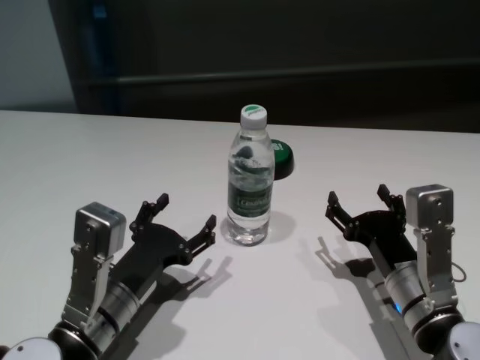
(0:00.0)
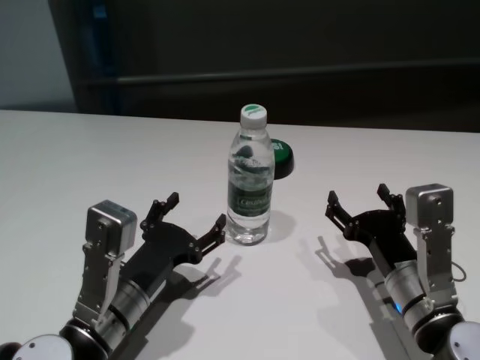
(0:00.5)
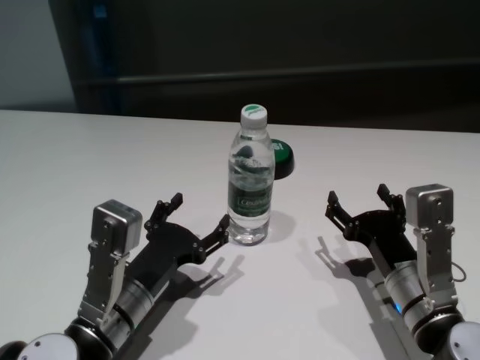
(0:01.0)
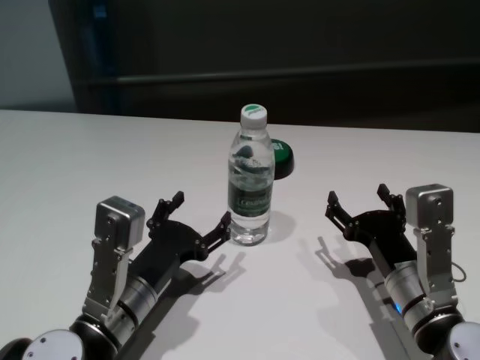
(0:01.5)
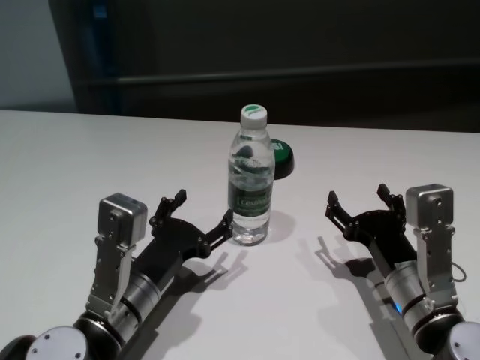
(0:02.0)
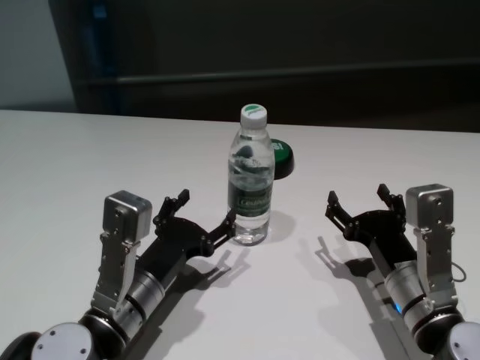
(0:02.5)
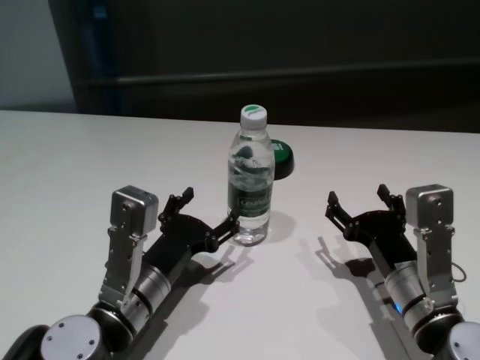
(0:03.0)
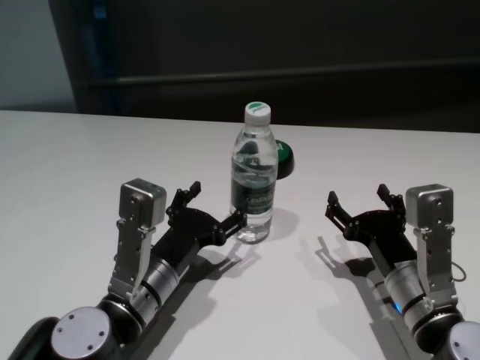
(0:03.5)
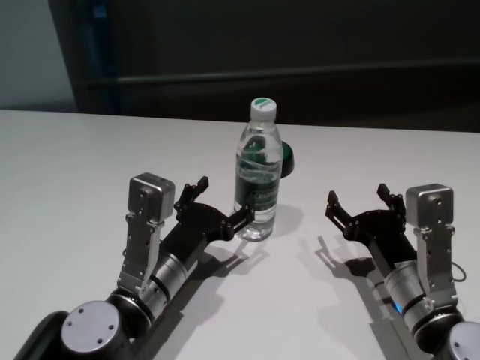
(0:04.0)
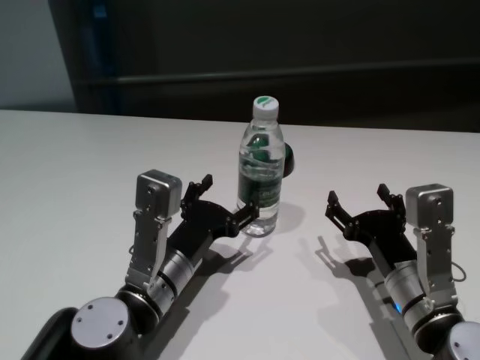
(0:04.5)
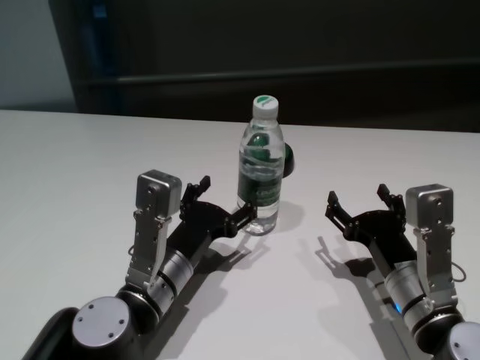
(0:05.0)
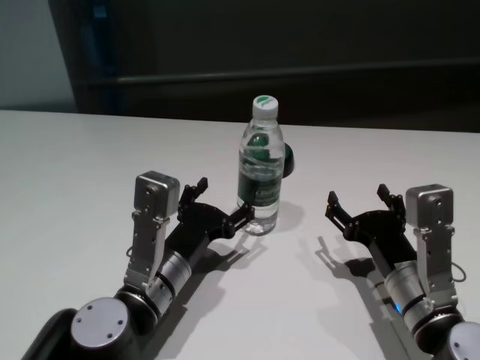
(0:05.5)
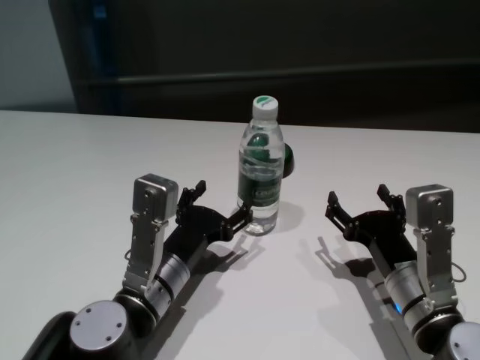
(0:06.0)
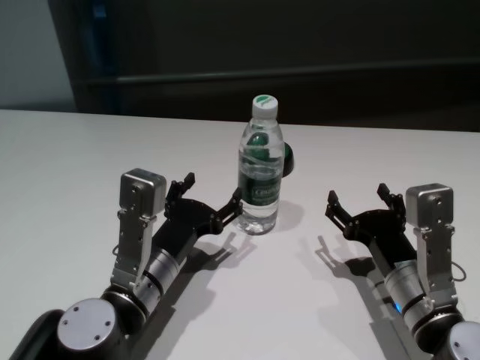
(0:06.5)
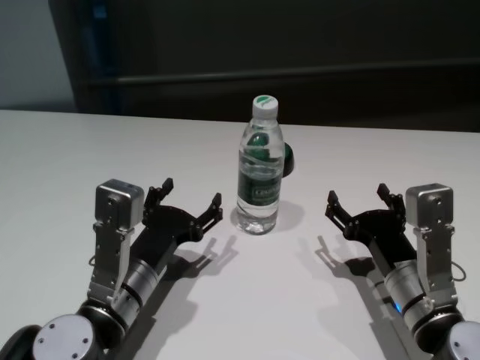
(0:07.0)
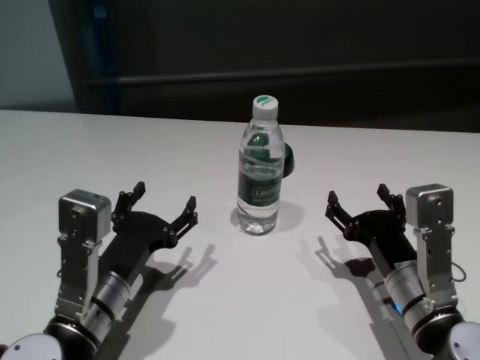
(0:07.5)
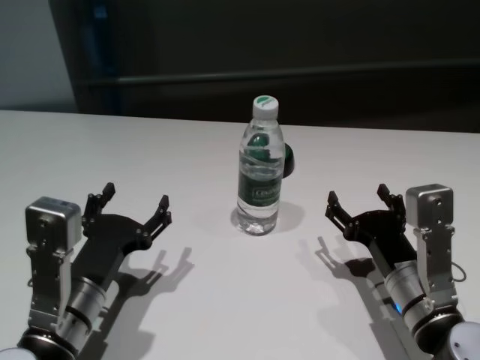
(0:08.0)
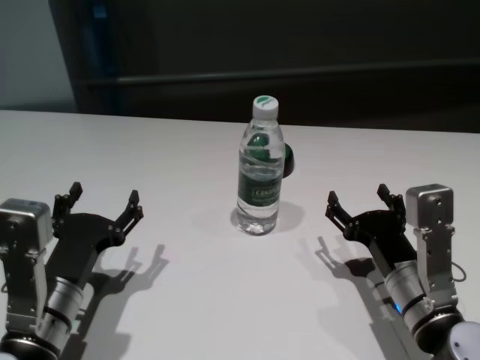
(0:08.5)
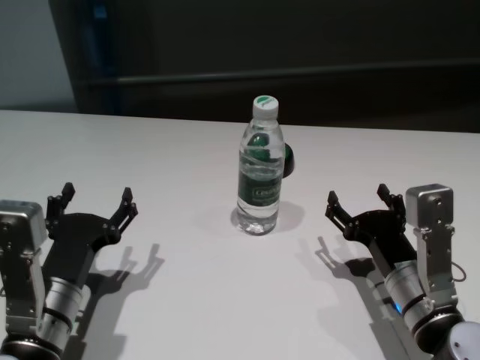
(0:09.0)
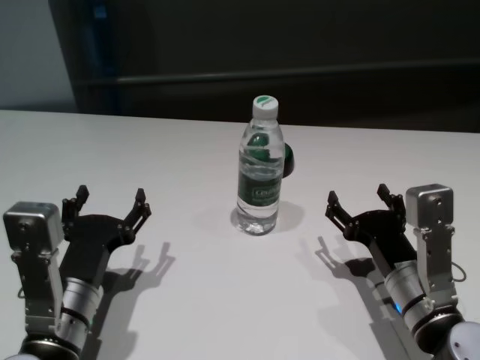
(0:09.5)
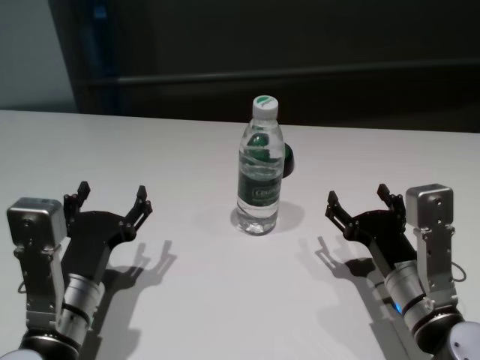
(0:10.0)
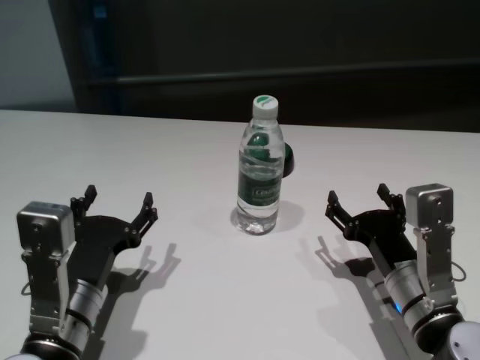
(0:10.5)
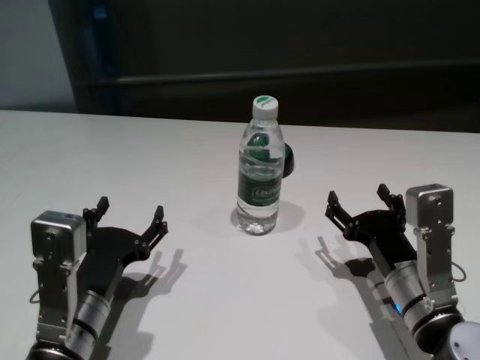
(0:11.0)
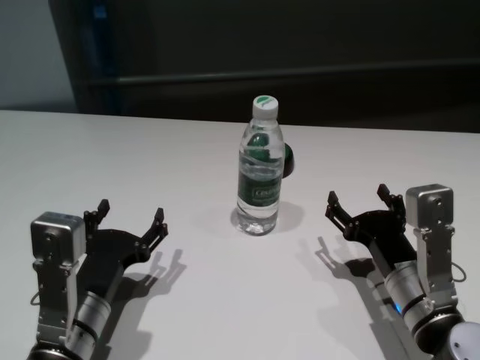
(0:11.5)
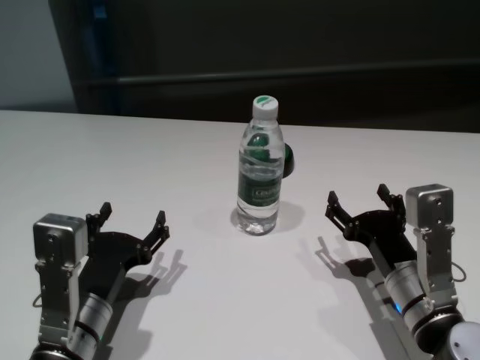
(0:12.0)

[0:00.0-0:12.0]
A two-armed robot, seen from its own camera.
Task of the whole recording: return to a safe position after touching an obstacle with your arm on the white table.
Step, 0:00.0 to 0:06.5: Touch the bottle with left gripper.

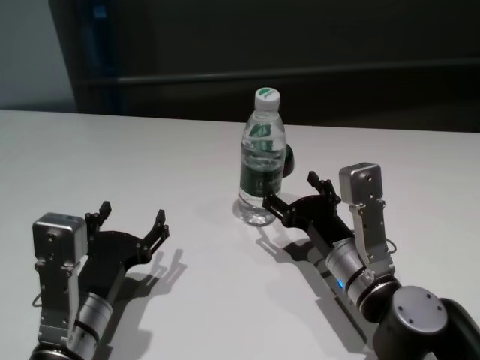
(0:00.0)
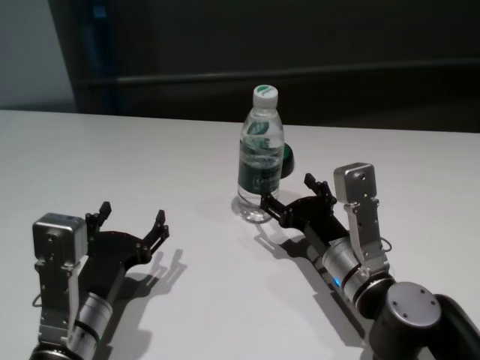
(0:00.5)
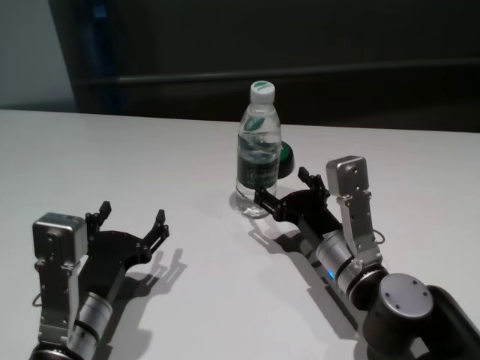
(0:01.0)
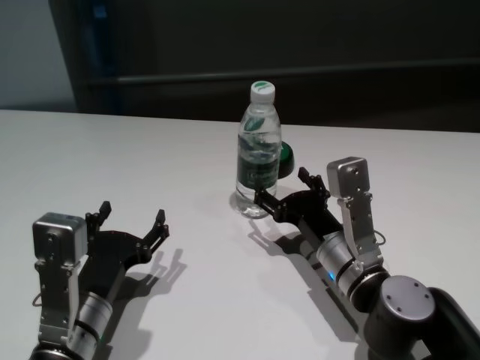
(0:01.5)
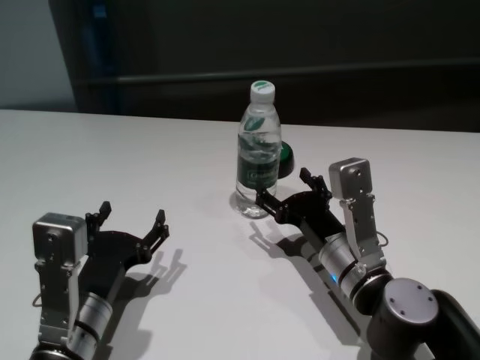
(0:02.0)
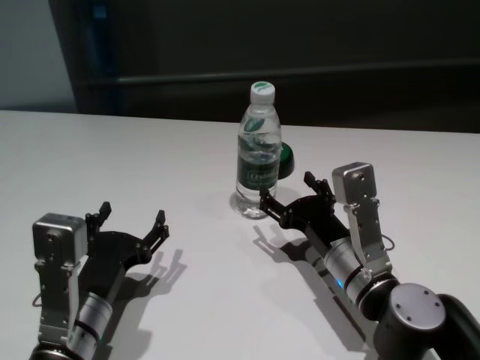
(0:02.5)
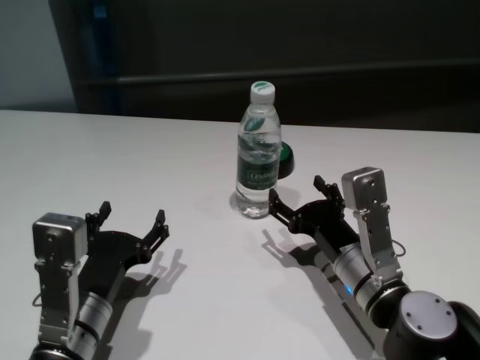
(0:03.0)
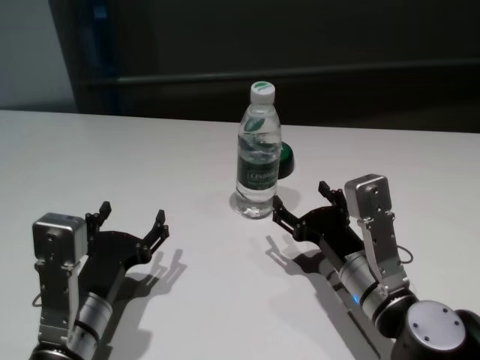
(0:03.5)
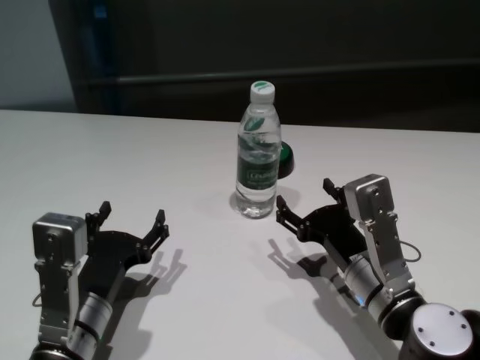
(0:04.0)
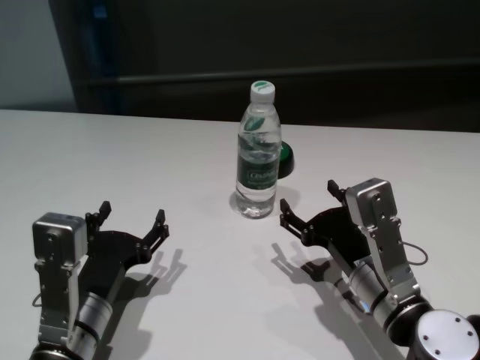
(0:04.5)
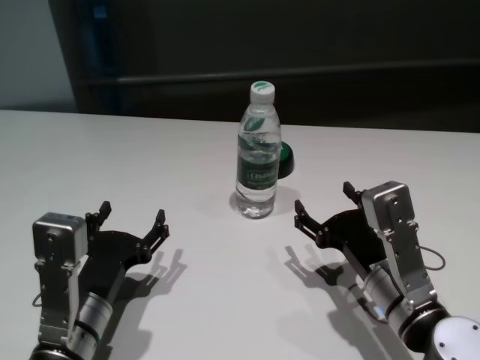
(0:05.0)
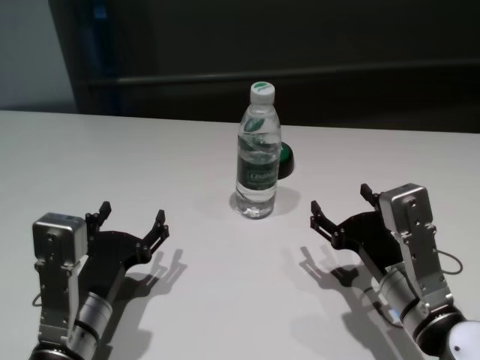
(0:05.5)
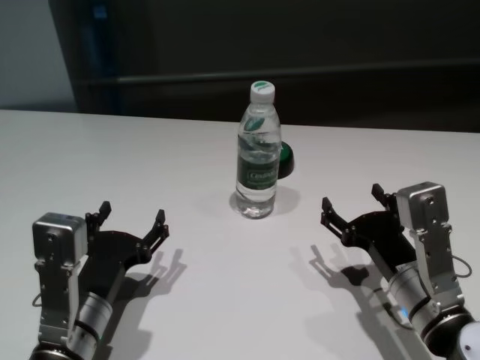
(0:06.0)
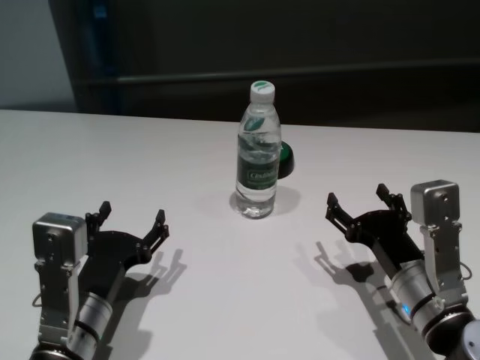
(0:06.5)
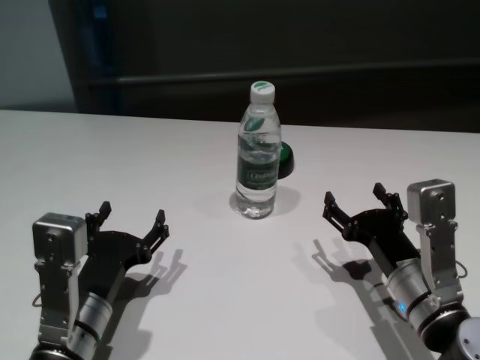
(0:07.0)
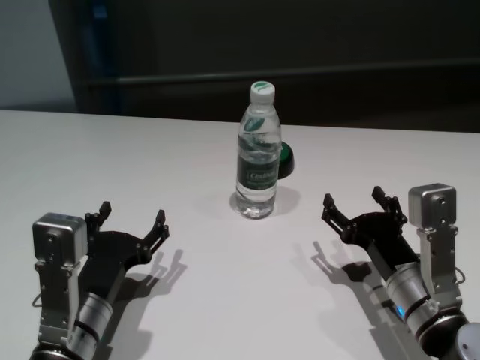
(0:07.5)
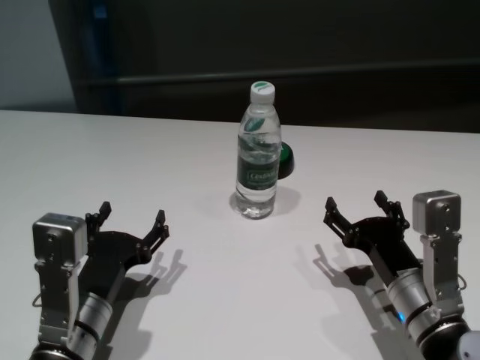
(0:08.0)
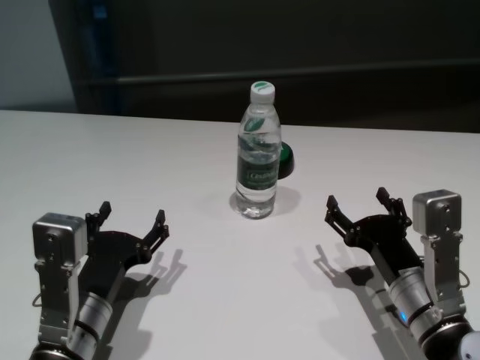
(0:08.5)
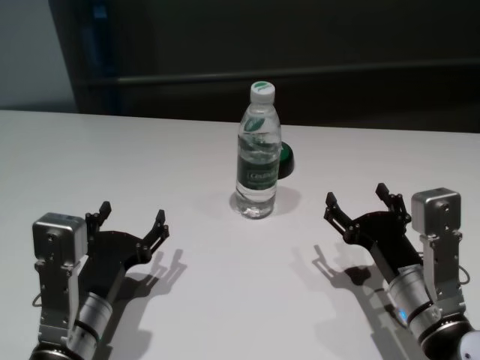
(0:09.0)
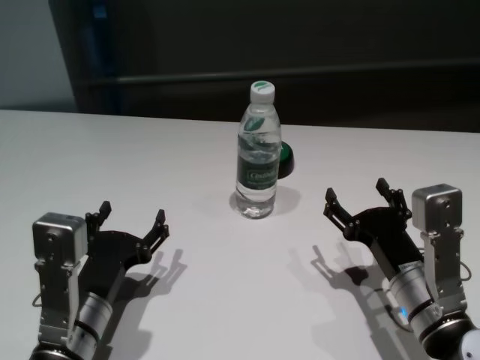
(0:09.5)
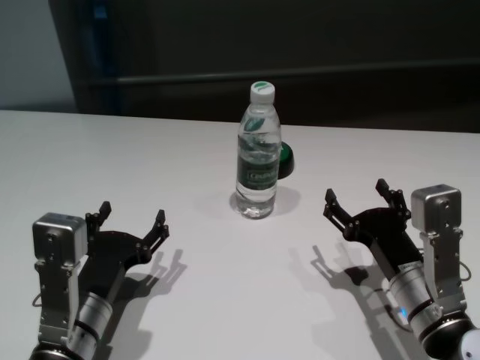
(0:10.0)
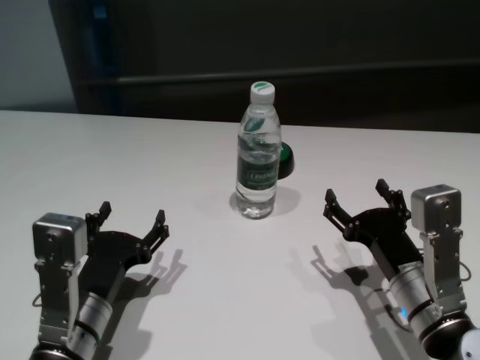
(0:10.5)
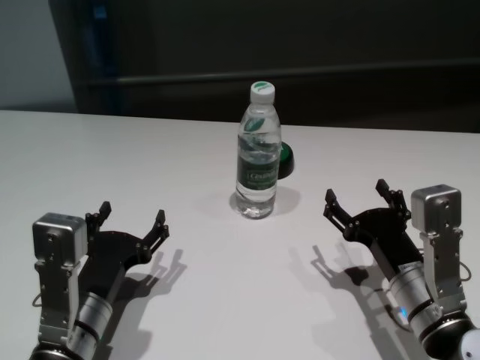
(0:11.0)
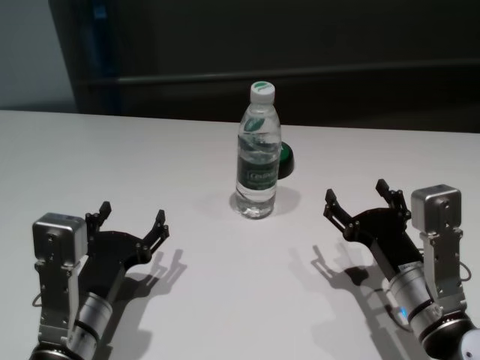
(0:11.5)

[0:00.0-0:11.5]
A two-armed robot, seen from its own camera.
Task of the whole recording: return to a safe position after touching an obstacle with your arm on the white table.
Step, 0:00.0 to 0:03.0: Touch the bottle with right gripper.

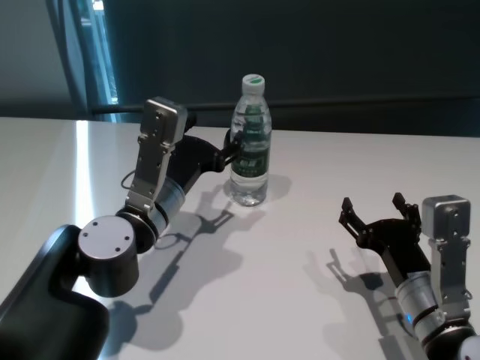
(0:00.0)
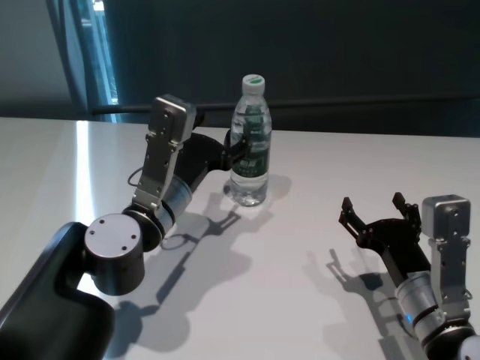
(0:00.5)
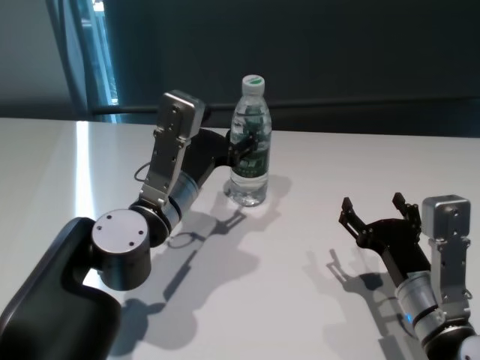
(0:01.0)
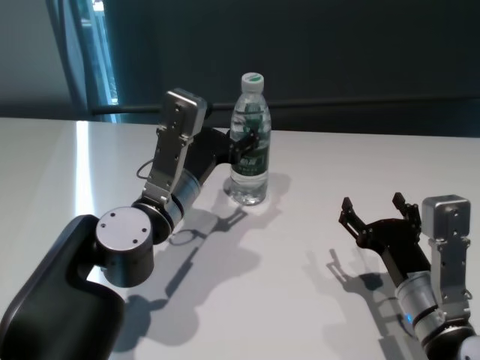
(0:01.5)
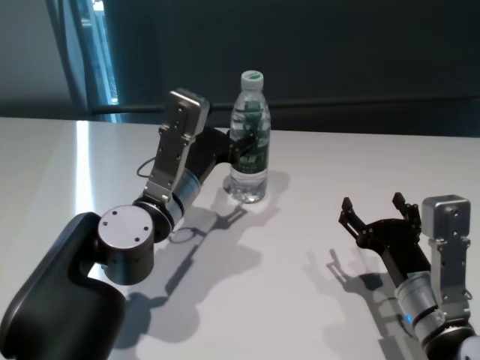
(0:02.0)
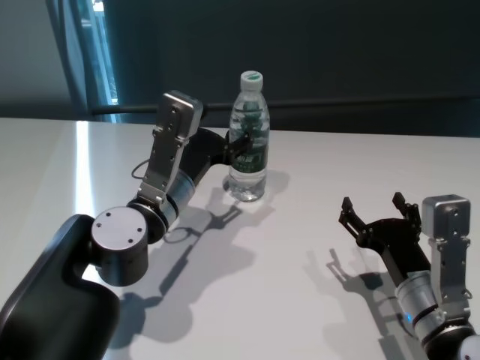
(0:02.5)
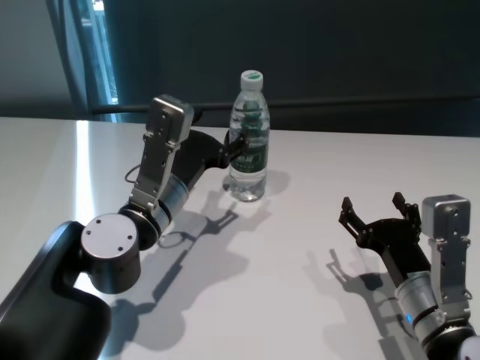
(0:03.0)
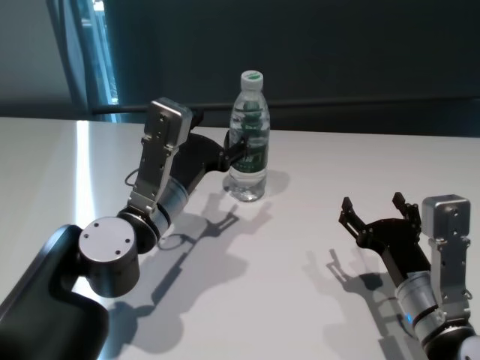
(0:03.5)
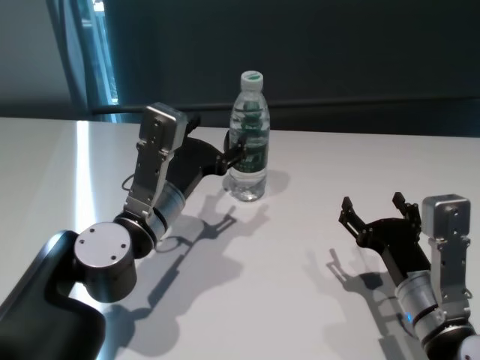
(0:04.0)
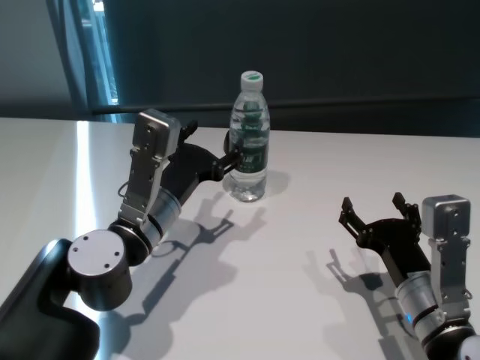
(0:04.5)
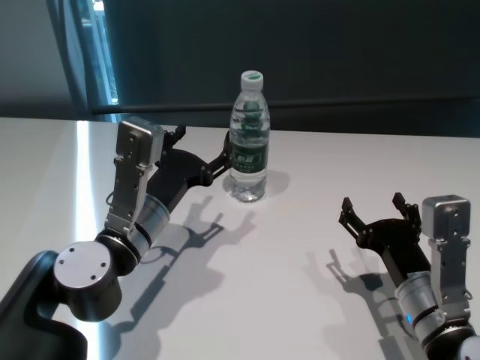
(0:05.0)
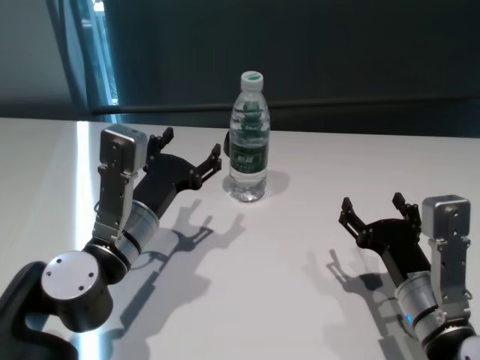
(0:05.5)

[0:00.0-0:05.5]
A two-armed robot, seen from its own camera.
Task of the whole recording: return to a safe position after touching an obstacle with your arm on the white table.
Step, 0:00.0 to 0:05.0: Touch the bottle with left gripper.
